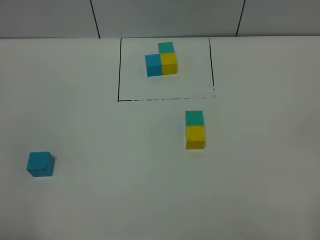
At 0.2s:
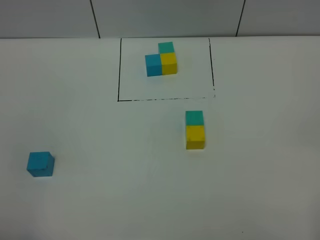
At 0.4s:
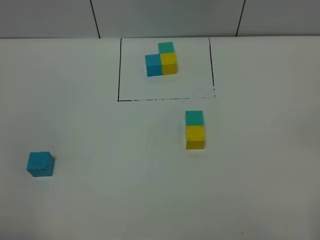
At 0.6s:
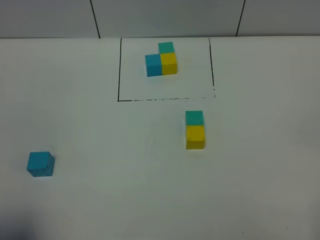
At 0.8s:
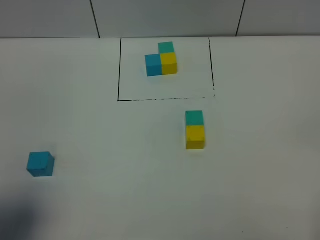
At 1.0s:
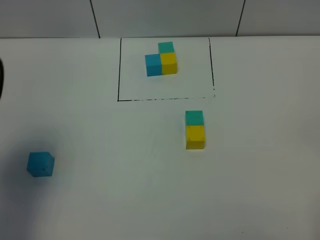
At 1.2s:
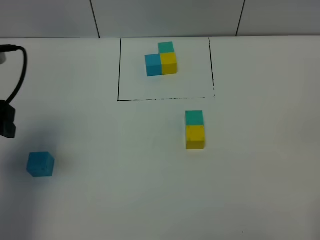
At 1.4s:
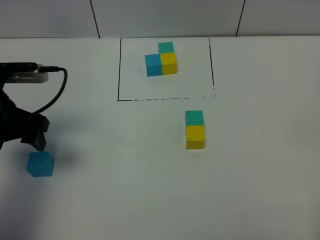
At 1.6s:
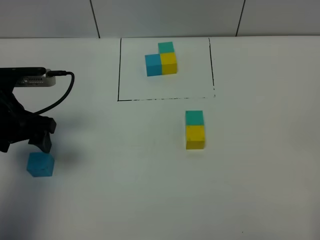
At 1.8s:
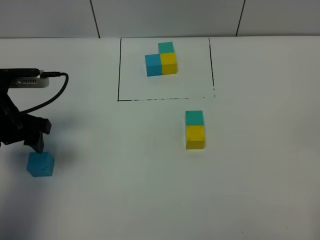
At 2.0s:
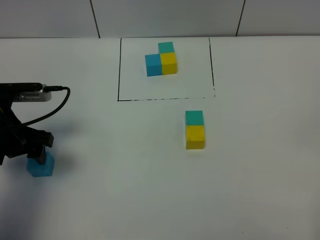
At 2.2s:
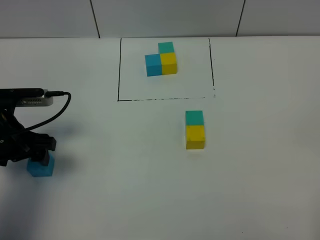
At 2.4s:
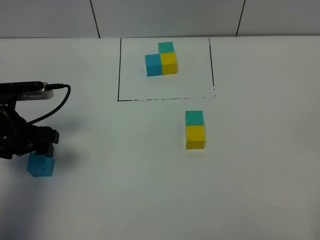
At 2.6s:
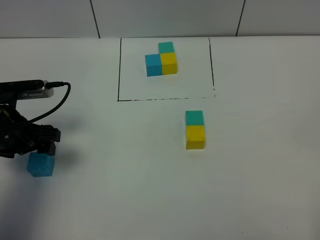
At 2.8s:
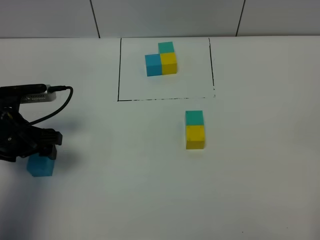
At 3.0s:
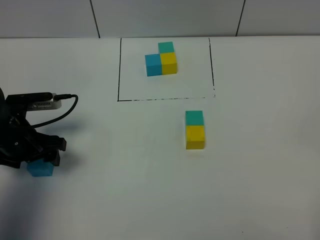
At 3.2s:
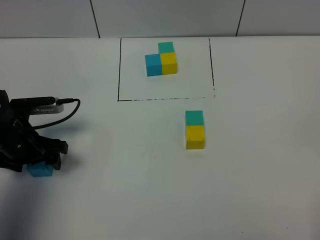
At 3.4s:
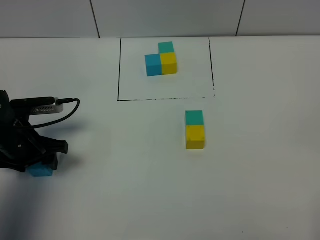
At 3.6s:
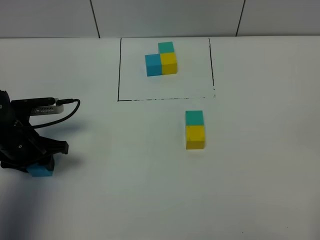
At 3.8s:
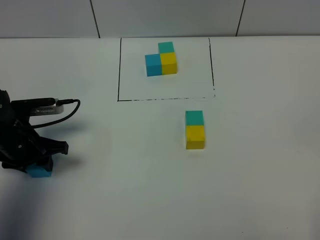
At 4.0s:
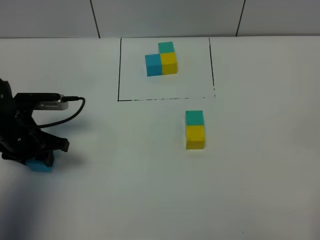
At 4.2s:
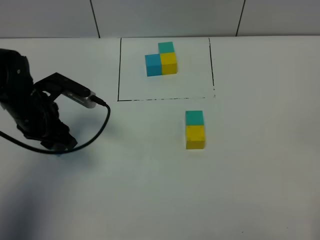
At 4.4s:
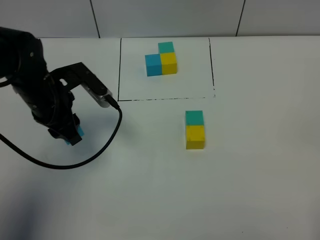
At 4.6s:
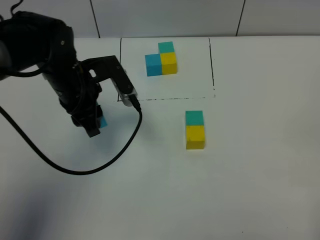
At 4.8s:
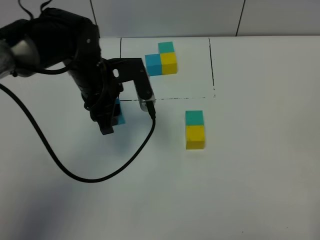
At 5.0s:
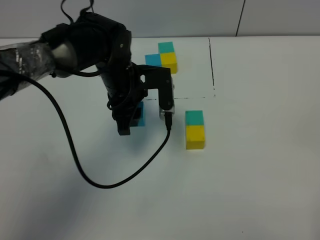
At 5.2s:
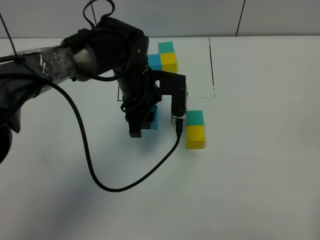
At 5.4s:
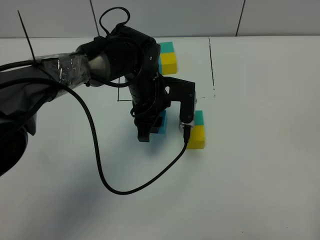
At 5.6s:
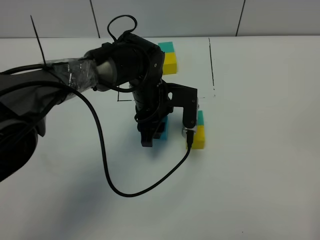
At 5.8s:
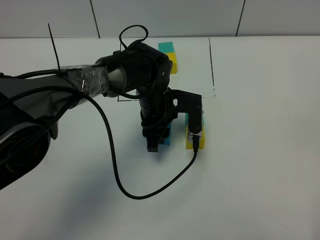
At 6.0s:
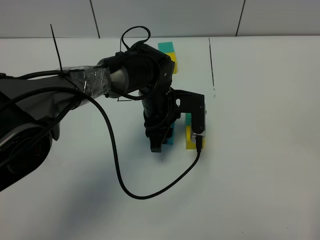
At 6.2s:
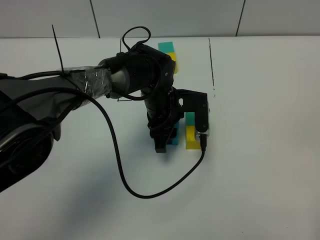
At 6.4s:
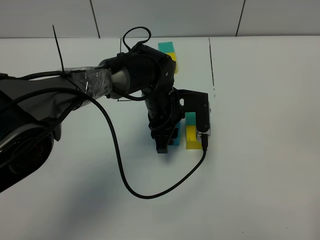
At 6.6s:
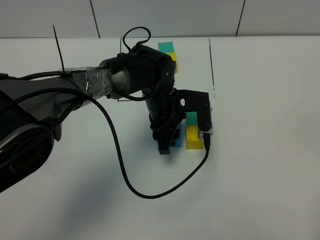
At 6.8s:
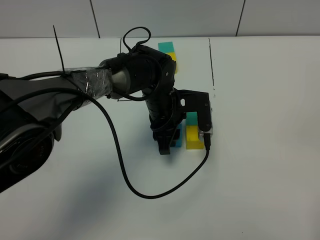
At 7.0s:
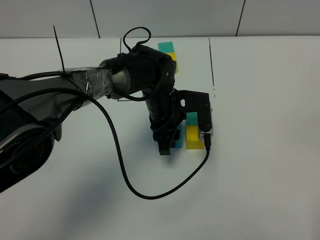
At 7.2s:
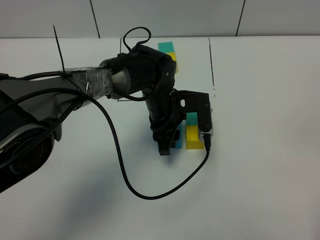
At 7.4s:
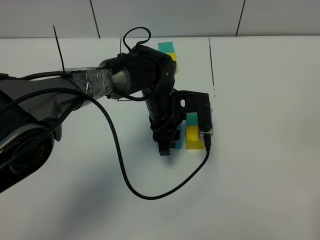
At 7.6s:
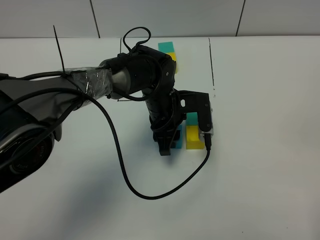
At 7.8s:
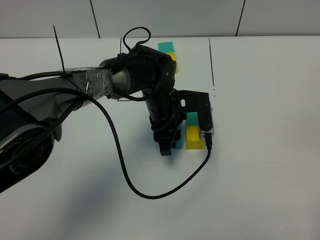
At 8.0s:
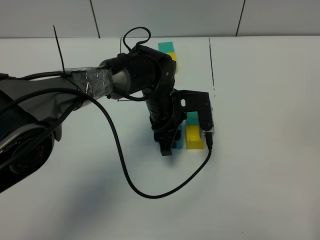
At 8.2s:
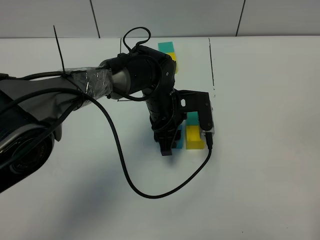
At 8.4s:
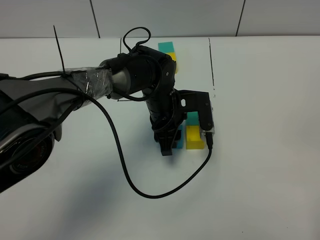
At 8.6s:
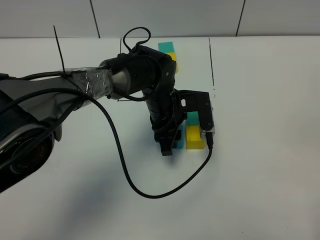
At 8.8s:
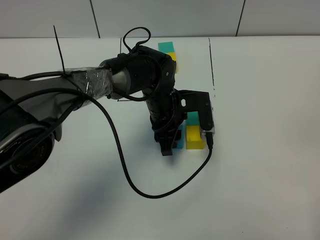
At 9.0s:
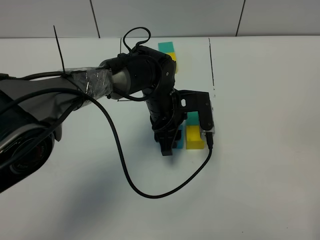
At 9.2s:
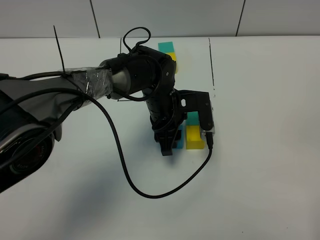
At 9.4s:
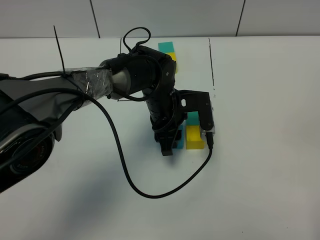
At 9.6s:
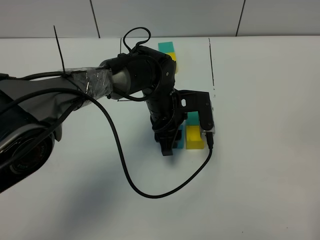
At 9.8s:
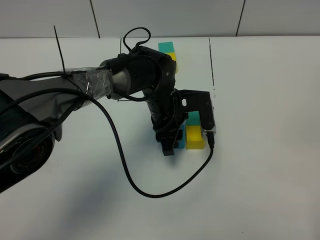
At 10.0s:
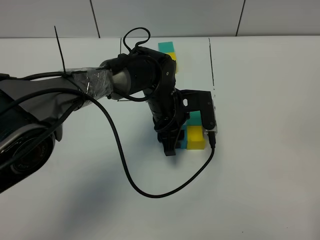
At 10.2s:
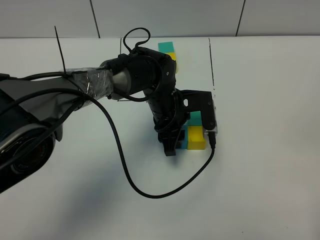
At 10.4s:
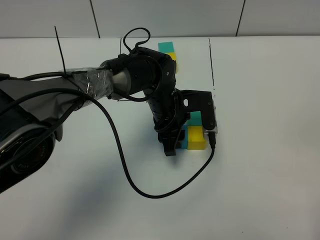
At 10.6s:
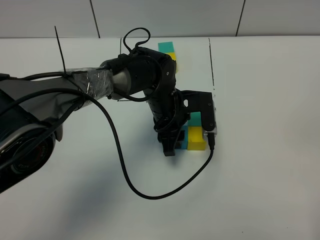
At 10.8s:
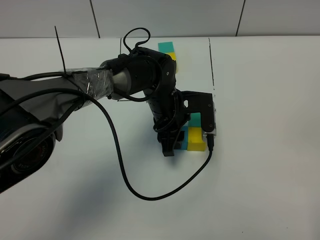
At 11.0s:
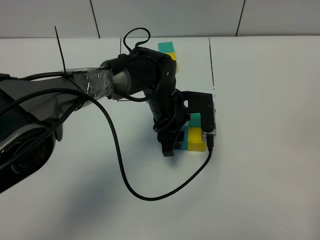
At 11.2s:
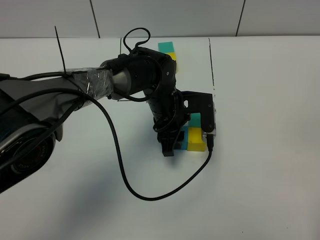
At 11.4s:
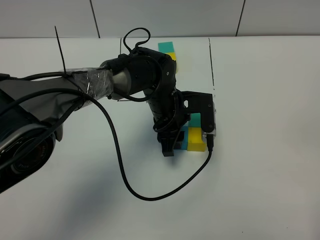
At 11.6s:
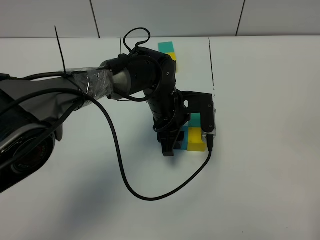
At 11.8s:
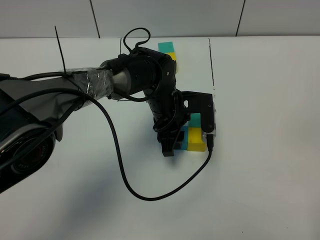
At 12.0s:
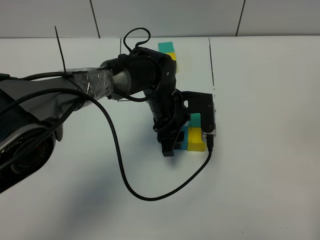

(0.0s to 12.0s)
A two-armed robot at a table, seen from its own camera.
Task of the whole recording: According to the building block template in front, assemble the scattered blocks together.
0.0s - 1.6s: The left gripper shifts about 30 cm forward.
1.6s - 3.0s: The left gripper shifts about 5 cm downward.
3.0s - 4.4s: The left gripper travels to the right and upward by some 10 cm, and closes up.
4.4s - 6.0s: The left gripper heads to the right and downward, covering about 20 cm.
6.0s - 7.6s: There are only small adjustments of the grippers.
7.6s - 12.0s: Both grippers stay put.

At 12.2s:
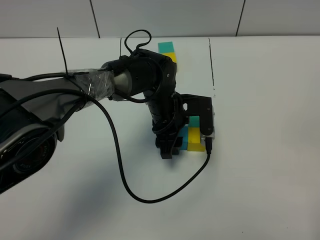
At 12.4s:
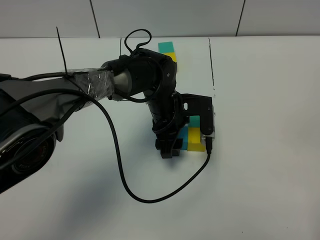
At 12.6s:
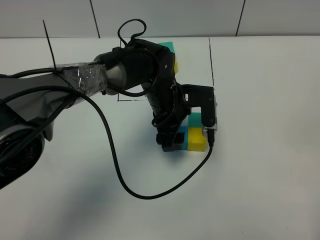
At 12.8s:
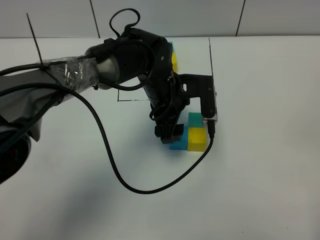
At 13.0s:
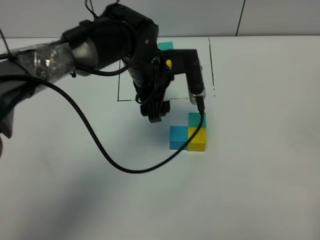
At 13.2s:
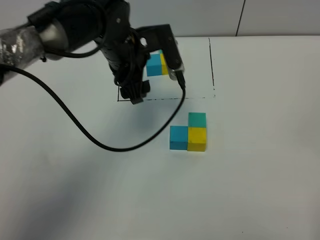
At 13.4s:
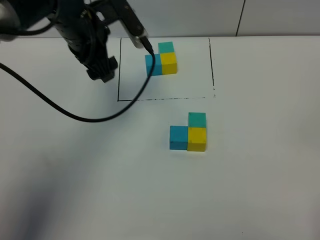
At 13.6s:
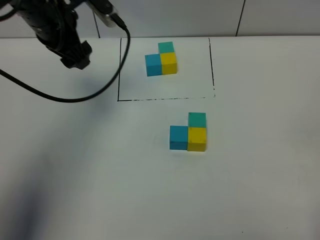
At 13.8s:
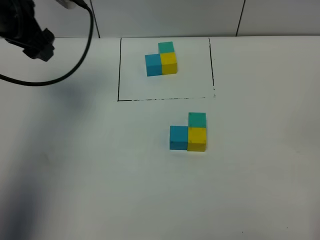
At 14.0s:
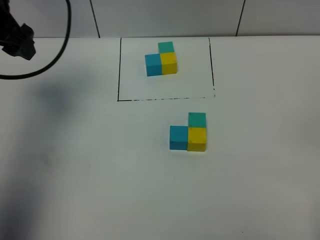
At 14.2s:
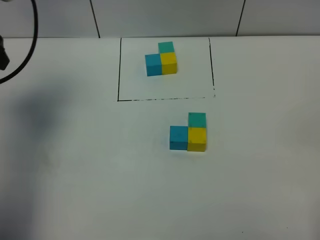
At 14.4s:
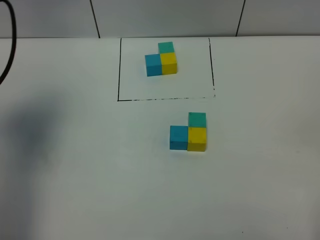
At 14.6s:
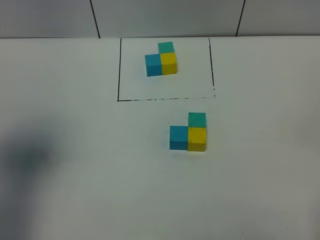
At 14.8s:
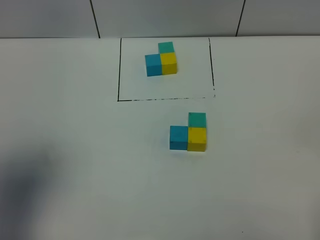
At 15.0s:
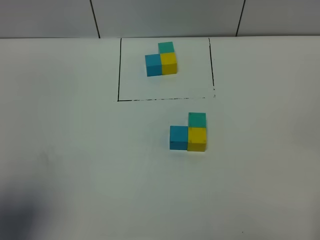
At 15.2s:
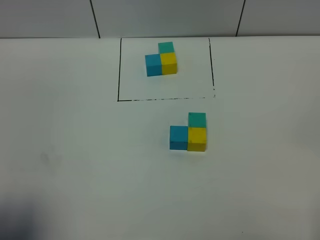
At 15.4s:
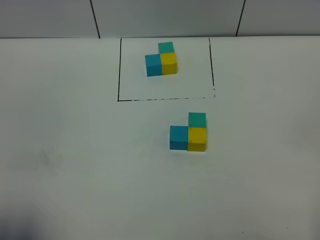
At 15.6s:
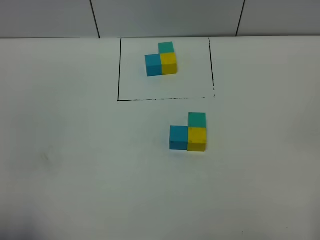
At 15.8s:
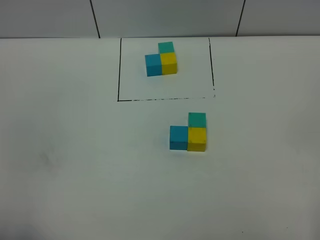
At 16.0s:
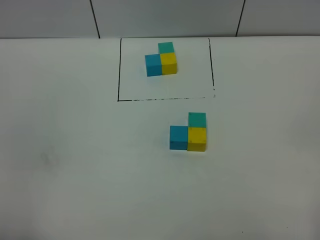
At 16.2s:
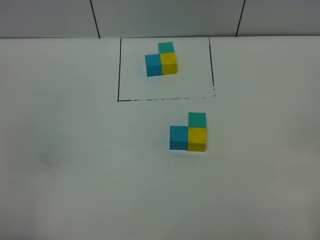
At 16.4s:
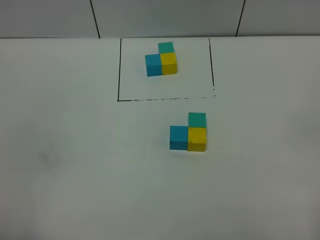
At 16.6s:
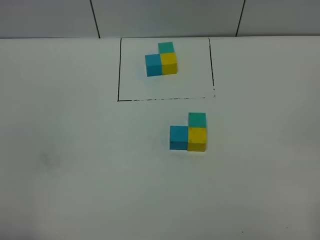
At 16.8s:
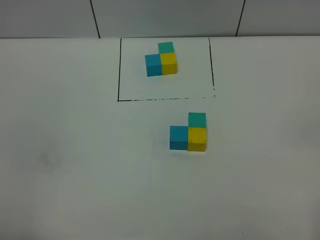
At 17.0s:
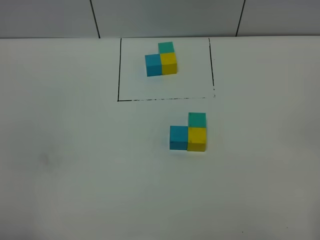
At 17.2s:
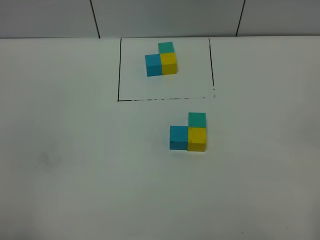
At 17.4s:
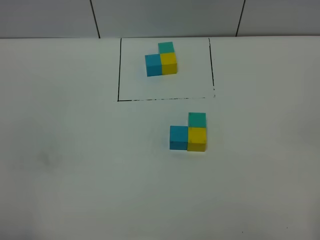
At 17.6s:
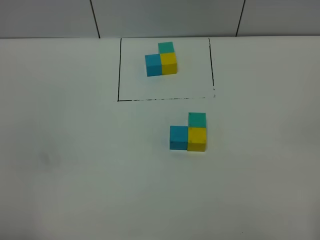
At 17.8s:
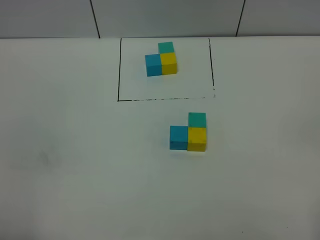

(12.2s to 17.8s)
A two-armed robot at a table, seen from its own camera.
Task of the whole recording: According to the building block template in front, assemble the scattered blocks together.
12.2s - 13.6s: The left gripper moves to the left and upward, approximately 25 cm, and opens.
13.6s - 15.0s: The left gripper goes roughly 30 cm backward.
15.0s - 16.4s: The left gripper shifts approximately 10 cm backward and downward.
16.4s - 17.8s: Neither gripper changes place.

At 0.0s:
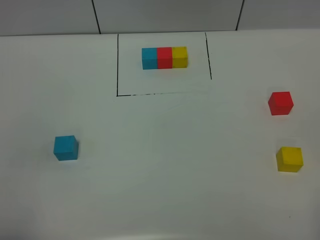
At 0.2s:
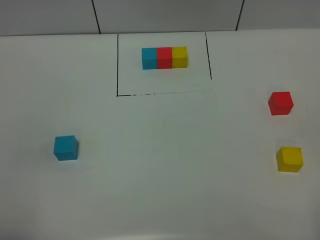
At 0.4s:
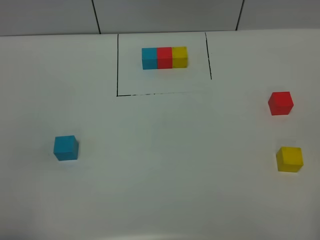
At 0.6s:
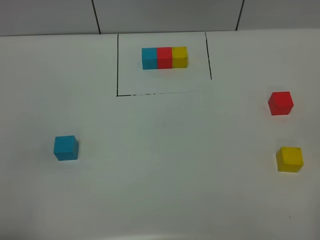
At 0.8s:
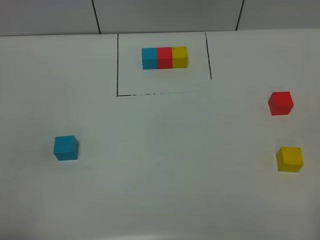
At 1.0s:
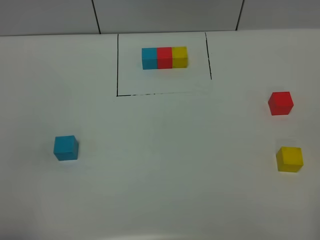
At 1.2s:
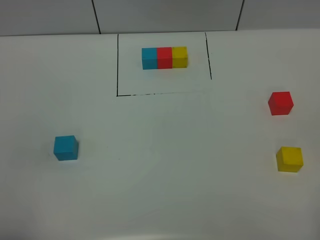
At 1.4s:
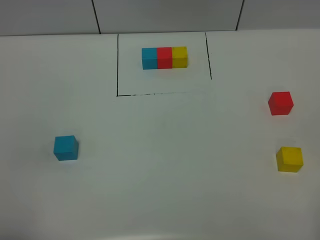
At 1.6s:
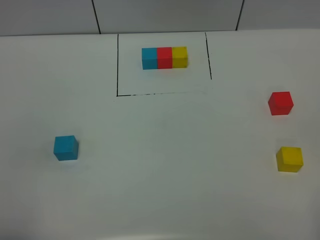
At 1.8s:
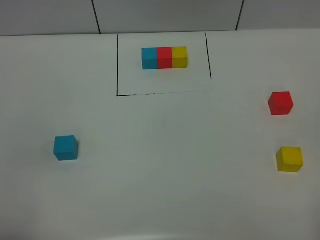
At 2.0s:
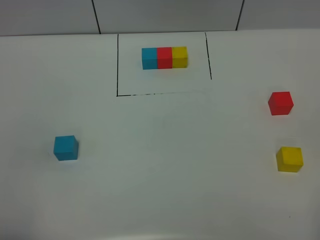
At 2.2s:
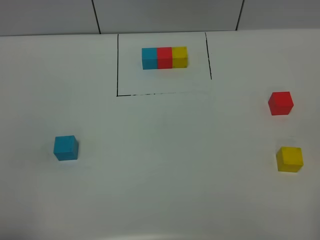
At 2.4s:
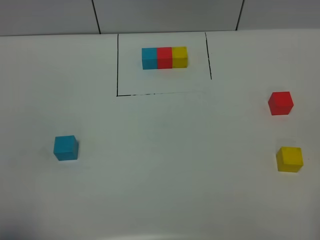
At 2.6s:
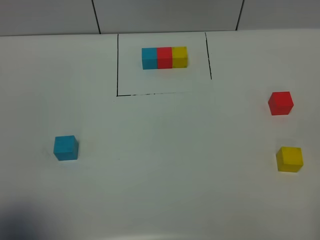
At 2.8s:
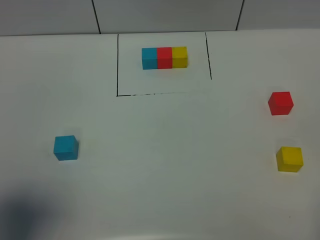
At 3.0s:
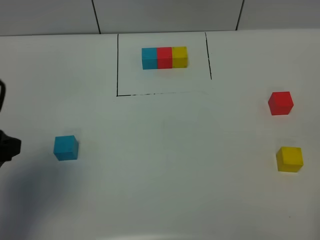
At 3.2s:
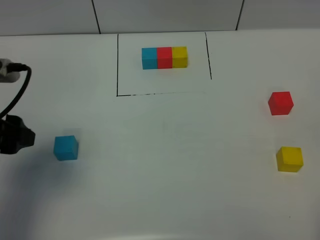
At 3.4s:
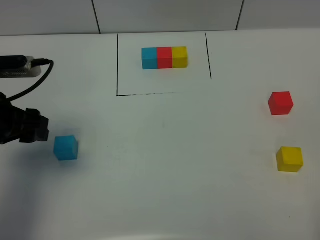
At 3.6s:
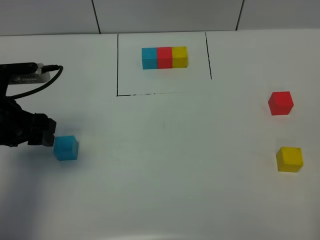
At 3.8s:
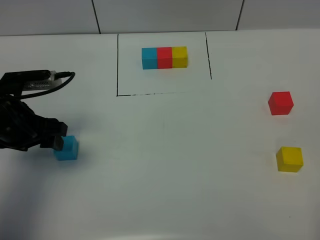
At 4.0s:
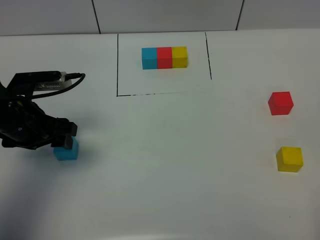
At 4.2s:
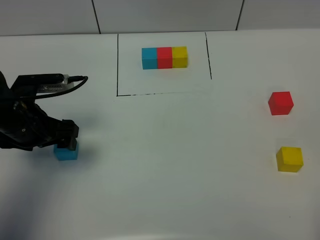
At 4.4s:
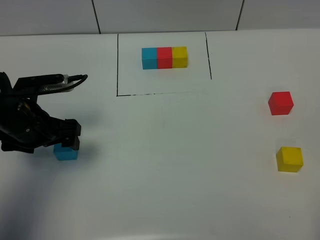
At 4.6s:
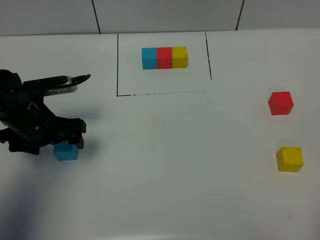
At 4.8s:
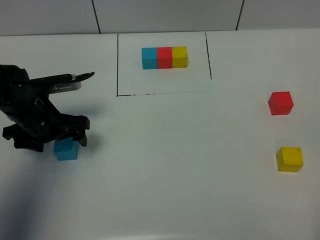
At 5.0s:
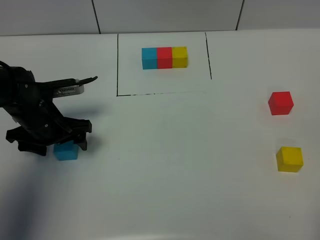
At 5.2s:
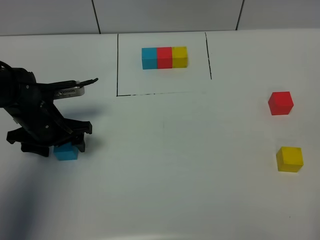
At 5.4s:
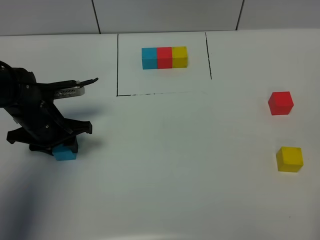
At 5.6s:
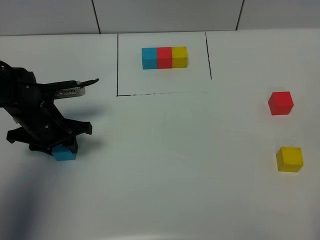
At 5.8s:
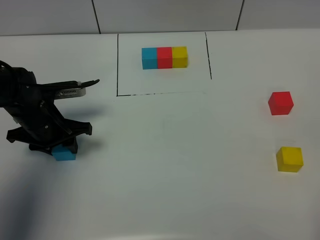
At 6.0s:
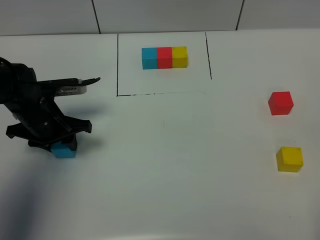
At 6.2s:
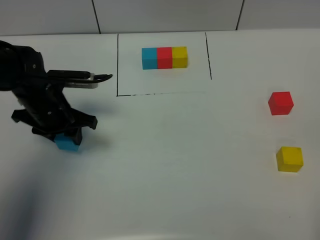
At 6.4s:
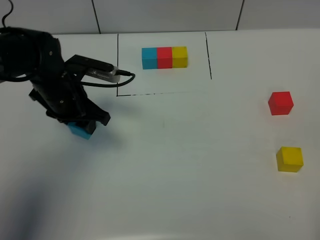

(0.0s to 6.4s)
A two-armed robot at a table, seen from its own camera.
Task of the whole recording: According to the building block template in front, assemble the scattered blocks together.
0.0s - 1.6s: Both grippers stay put.
1.6s - 3.2s: The left gripper heads forward, covering roughly 20 cm.
3.2s - 4.8s: The left gripper heads downward and forward, covering some 15 cm, and opens up.
4.8s - 6.4s: The left gripper is displaced to the right by about 5 cm, and closes up.
